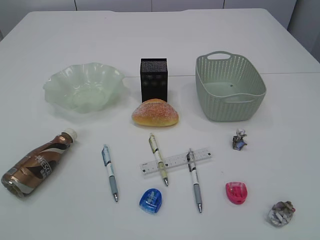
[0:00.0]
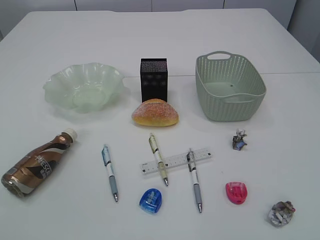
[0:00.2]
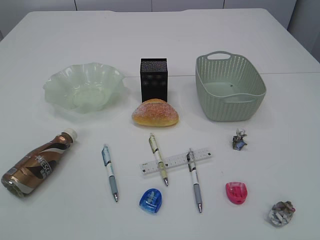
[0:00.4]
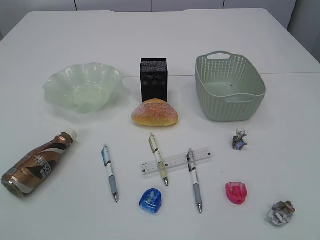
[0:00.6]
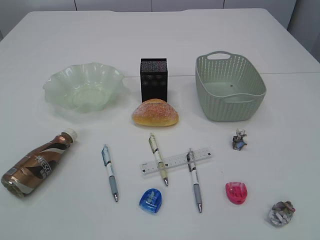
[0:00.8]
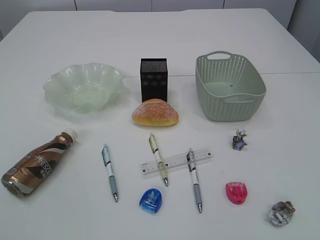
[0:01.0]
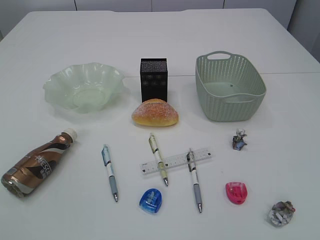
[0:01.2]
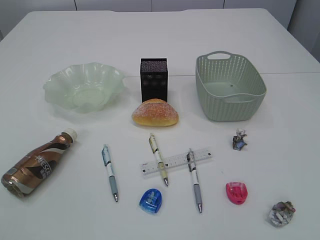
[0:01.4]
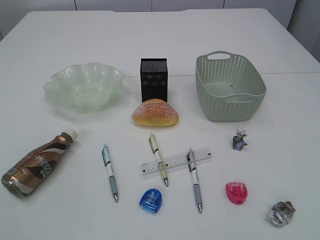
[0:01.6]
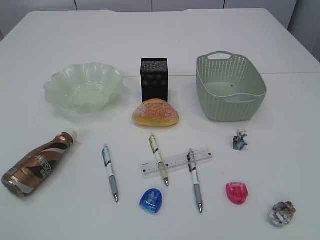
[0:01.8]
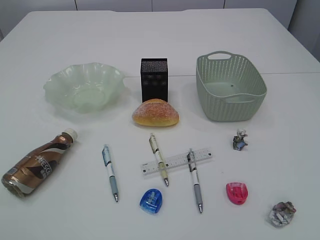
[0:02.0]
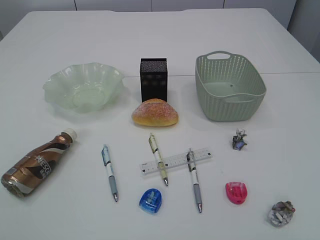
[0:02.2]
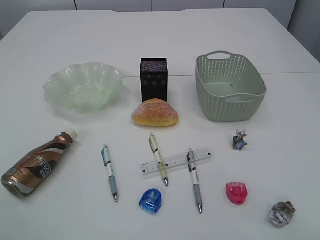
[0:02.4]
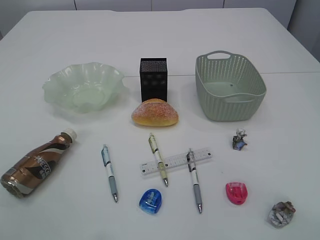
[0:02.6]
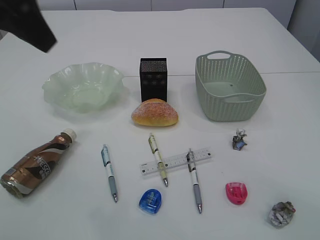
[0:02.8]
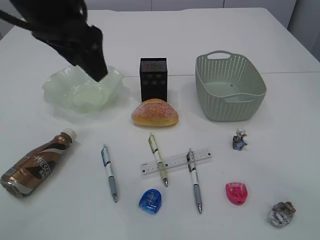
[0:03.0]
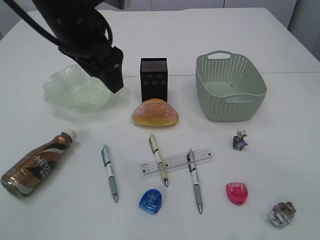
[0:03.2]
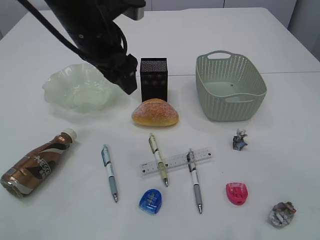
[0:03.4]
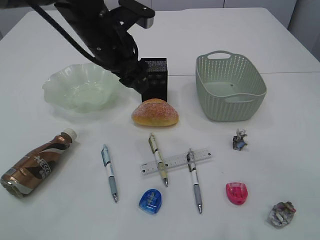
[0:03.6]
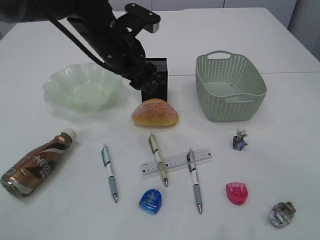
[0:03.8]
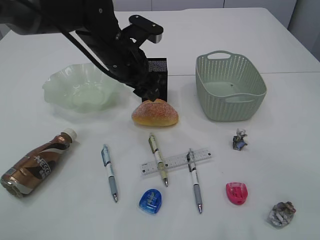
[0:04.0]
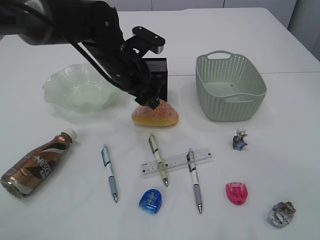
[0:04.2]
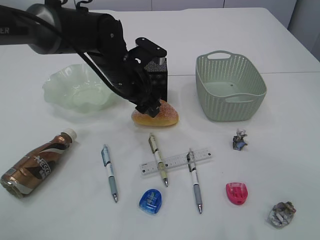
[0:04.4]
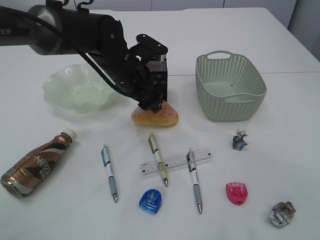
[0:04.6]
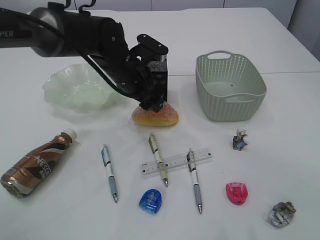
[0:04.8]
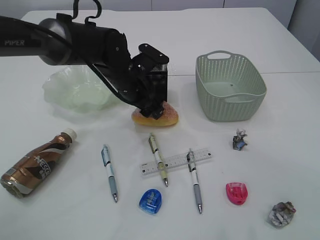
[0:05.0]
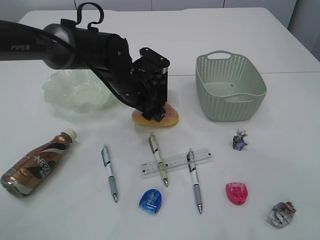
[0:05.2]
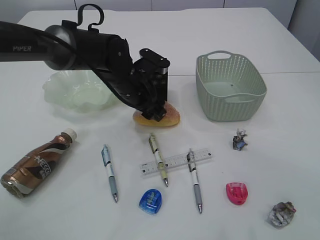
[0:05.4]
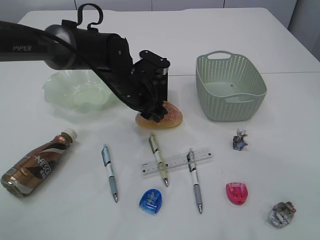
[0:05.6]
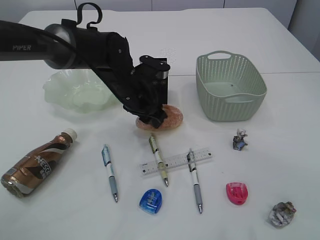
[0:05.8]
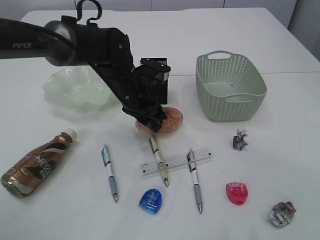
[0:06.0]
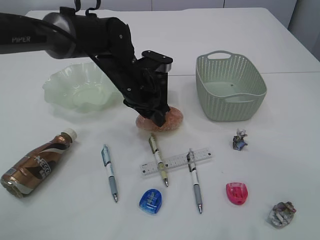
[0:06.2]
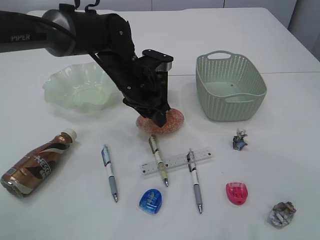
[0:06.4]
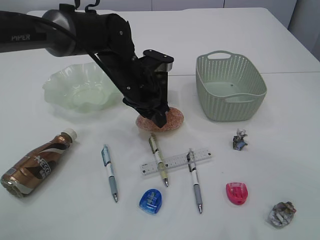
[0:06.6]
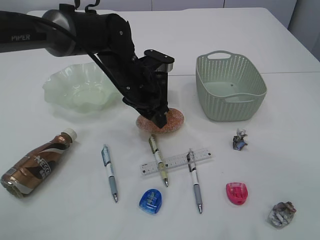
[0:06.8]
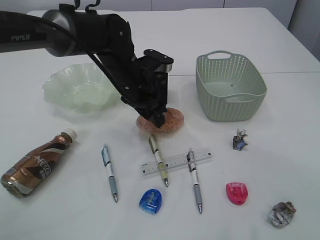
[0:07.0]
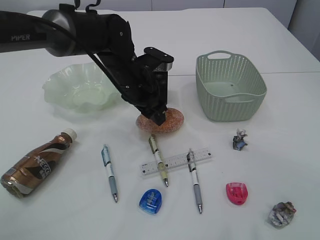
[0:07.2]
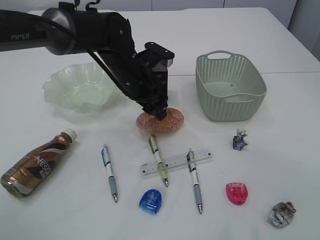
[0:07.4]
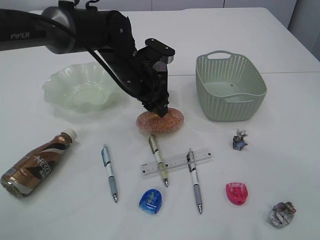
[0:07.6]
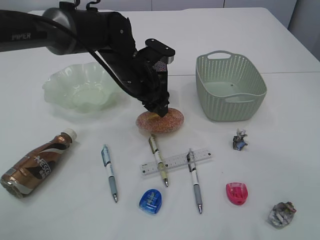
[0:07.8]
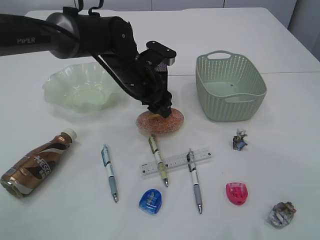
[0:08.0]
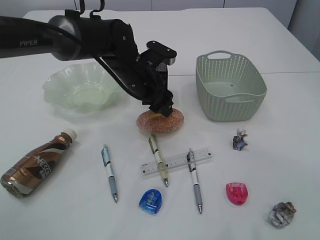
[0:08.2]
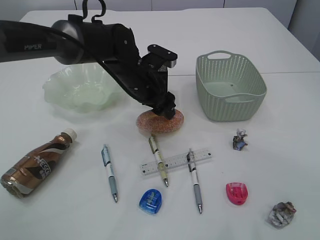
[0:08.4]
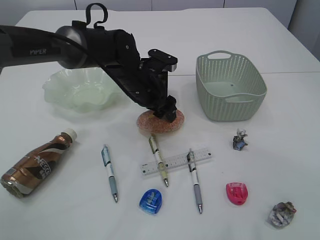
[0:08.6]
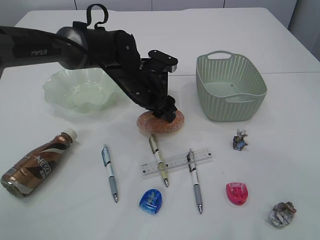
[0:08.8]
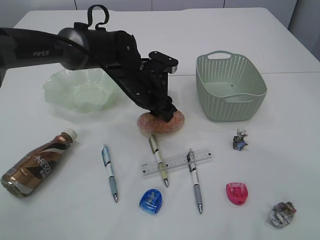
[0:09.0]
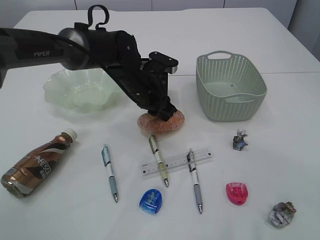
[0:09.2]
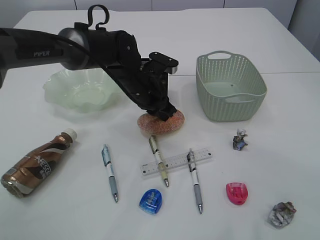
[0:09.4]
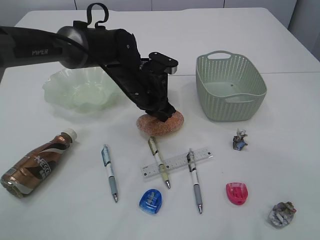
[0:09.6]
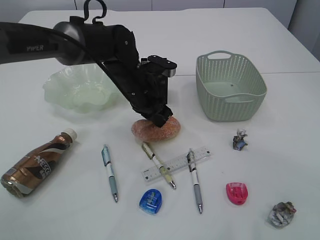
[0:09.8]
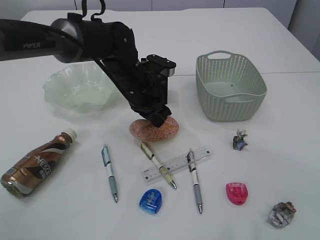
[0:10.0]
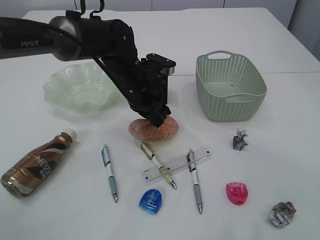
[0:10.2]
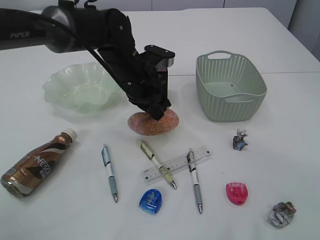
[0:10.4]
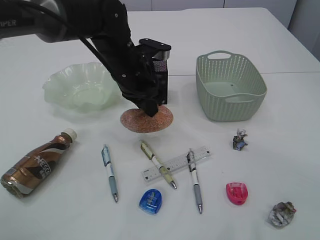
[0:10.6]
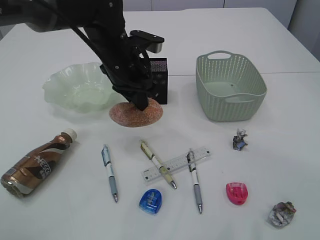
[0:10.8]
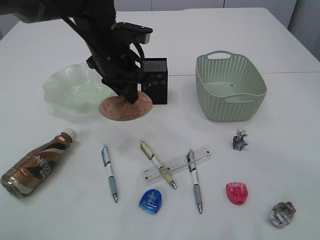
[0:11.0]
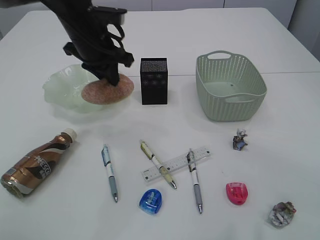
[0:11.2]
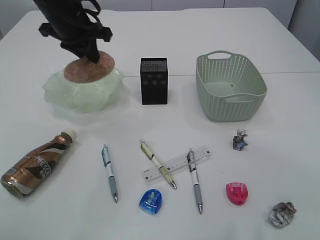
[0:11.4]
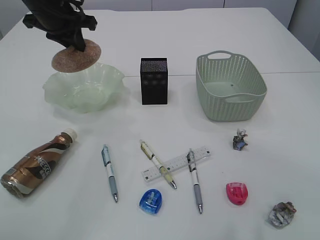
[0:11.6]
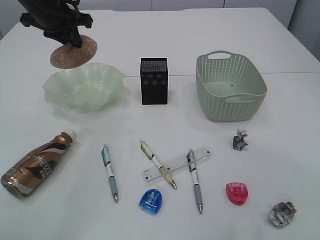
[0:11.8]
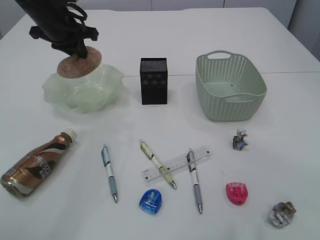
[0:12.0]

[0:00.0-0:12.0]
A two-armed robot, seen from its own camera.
0:01.6 to 0:03.0: The right gripper shifts roughly 20 cm forward and upward; the left gripper shifts roughly 35 cm forward and to the right, and opens.
0:03.0 to 0:04.4: The left gripper travels downward and forward by roughly 20 cm. The right gripper moves some 5 cm.
0:04.4 to 0:06.0: The left gripper closes up.
0:06.0 to 0:07.6: The left gripper opens its fingers.
0:07.6 to 0:09.0: The left gripper closes.
0:09.0 to 0:10.4: The left gripper closes its fingers.
0:10.4 to 0:12.0: The left gripper shifts approximately 20 cm to the left, upward and forward.

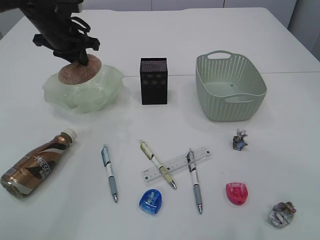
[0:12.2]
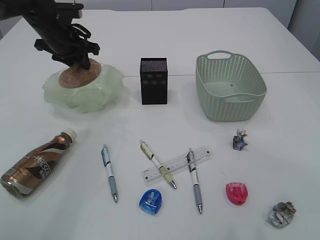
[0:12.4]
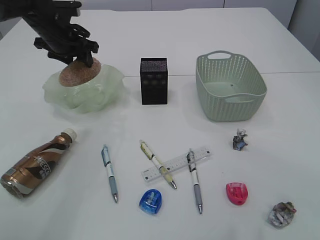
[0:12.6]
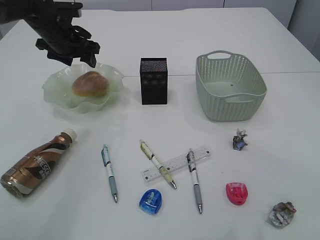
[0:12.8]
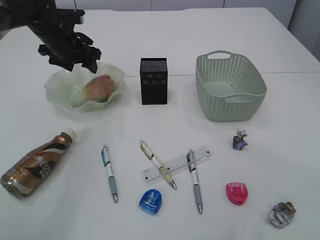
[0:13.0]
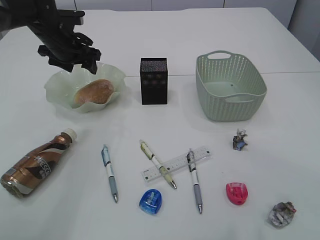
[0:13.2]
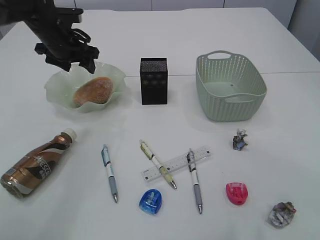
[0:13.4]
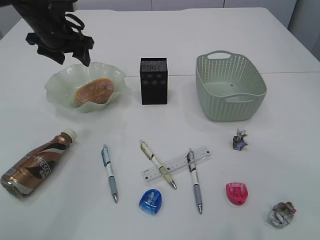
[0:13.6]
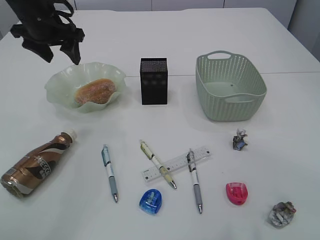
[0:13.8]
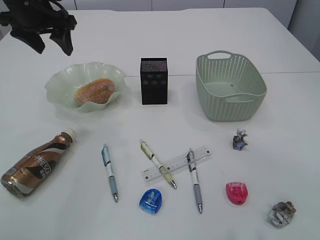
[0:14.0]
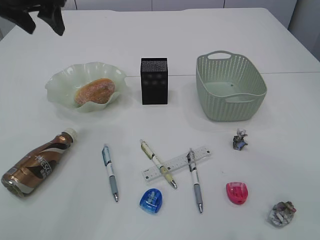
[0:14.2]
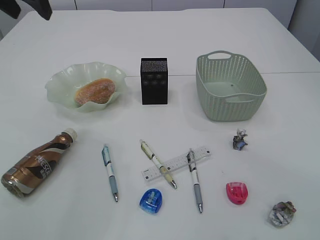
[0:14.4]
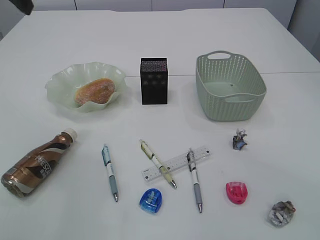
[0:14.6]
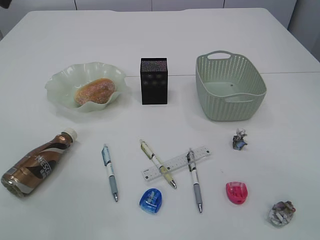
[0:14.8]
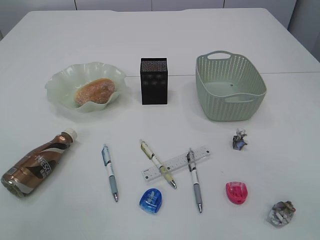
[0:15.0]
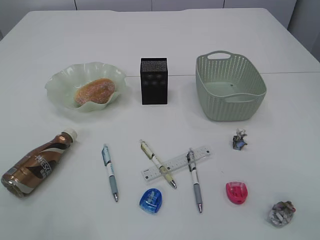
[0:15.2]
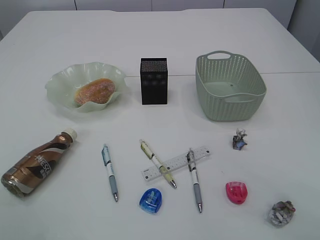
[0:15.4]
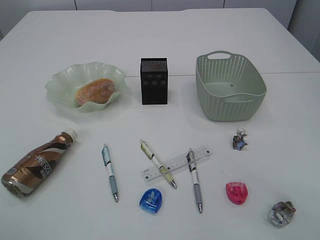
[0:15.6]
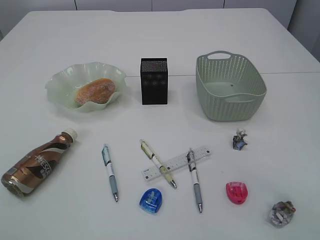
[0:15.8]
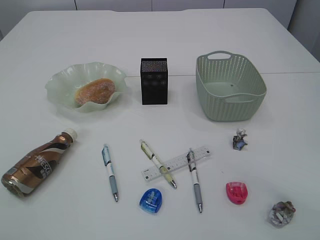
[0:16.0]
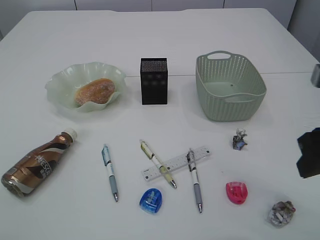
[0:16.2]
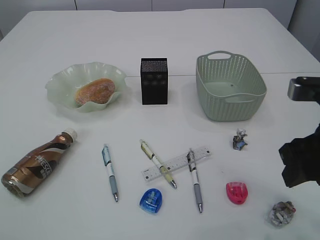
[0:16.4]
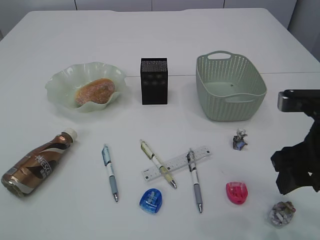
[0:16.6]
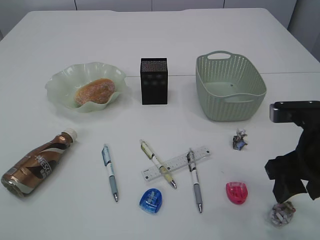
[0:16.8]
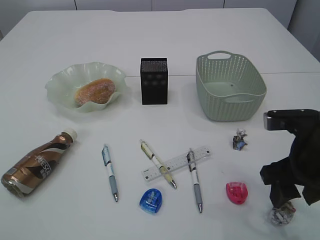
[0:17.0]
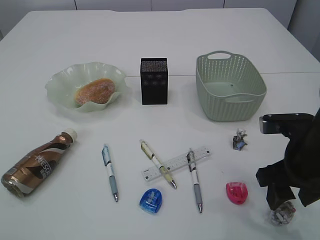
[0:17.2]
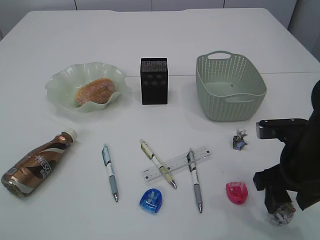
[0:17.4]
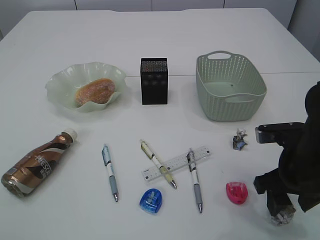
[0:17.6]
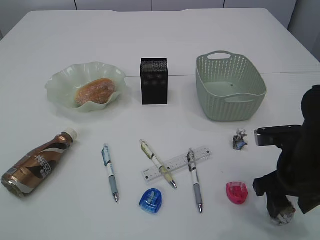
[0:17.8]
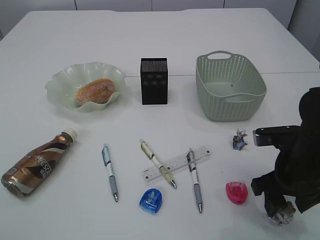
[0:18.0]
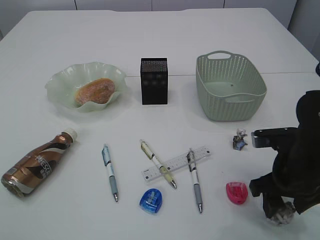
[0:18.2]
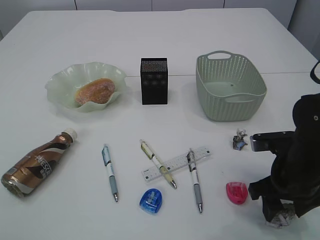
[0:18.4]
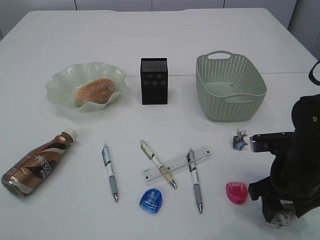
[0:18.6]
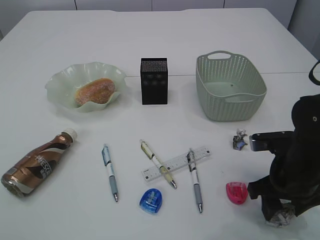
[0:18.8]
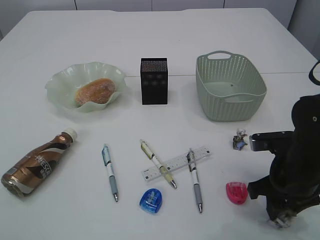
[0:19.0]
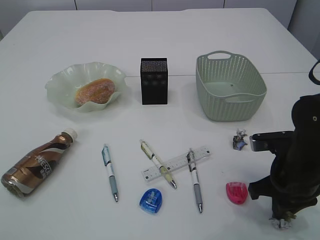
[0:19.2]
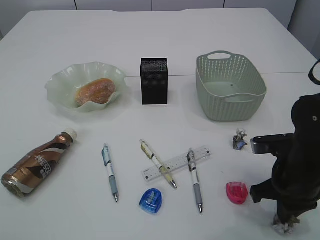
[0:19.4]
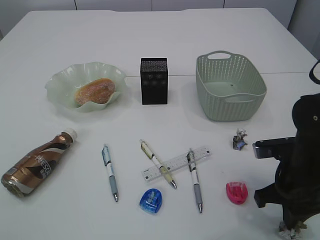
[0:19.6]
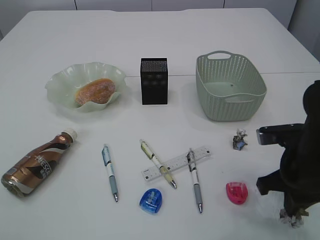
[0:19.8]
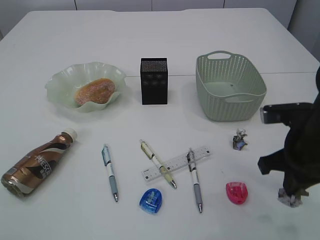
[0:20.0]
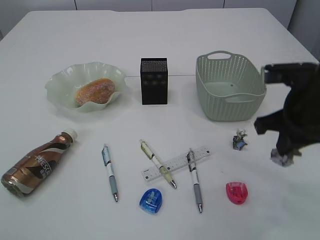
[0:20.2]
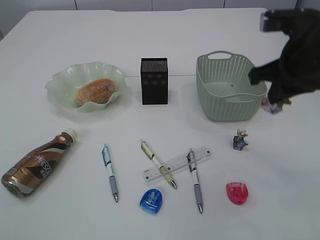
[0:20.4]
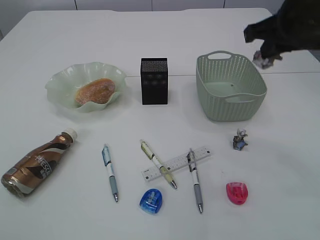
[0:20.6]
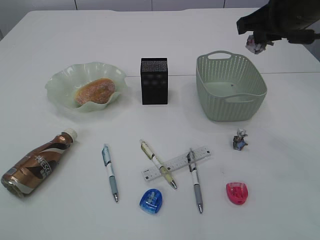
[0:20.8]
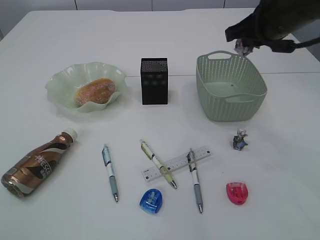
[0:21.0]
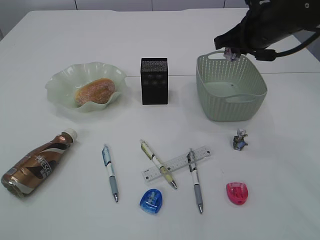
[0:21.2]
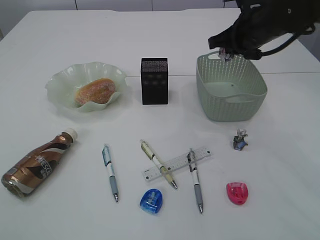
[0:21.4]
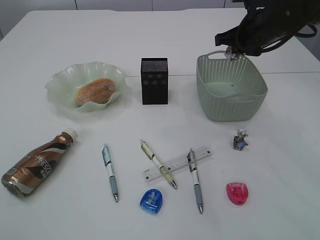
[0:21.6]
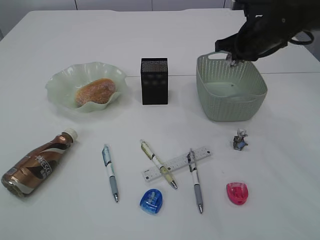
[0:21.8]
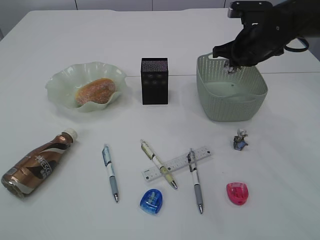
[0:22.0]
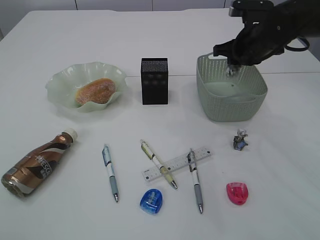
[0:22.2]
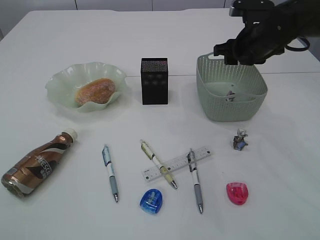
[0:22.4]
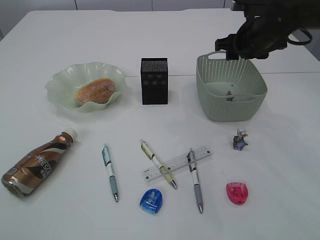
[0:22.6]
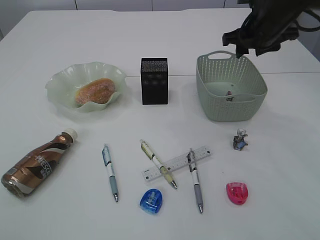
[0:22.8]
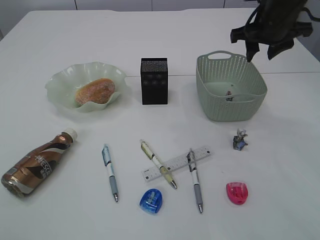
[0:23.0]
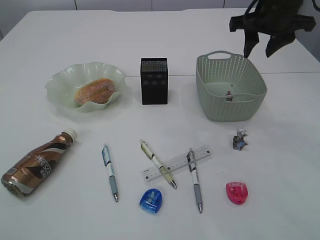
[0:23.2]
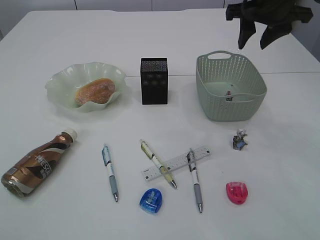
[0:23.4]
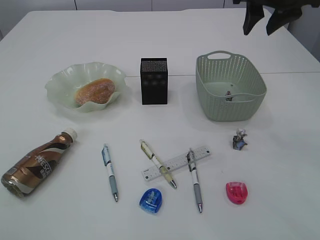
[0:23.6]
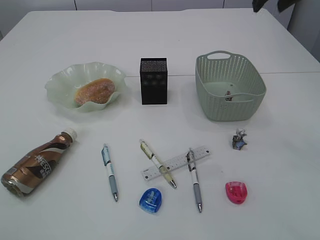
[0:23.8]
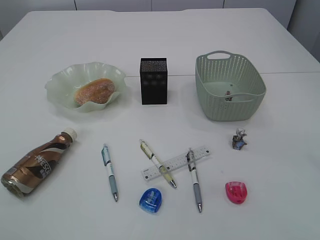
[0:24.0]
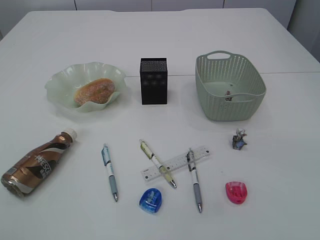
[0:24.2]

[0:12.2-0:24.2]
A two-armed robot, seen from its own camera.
Step, 0:13.4 to 0:20.2: Pick up the waste paper.
Step, 0:20.4 to 0:22.8: Place the waste paper in the basket.
0:12.2 to 0:13.8: The left gripper opens.
0:13.8 to 0:15.2: The left gripper goes roughly 30 cm backward and upward.
0:15.2 to 0:16.6: The right gripper is displaced downward by about 15 cm.
0:16.6 to 0:18.2: The right gripper moves downward, about 10 cm.
0:18.2 to 0:19.8: The right gripper closes up.
0:19.8 to 0:21.2: The right gripper goes some 20 cm forward and upward.
0:21.2 to 0:22.6: The right gripper moves forward, roughly 5 cm, and opens up.
0:22.6 to 0:24.2: The right gripper is displaced upward and backward by about 25 cm.
